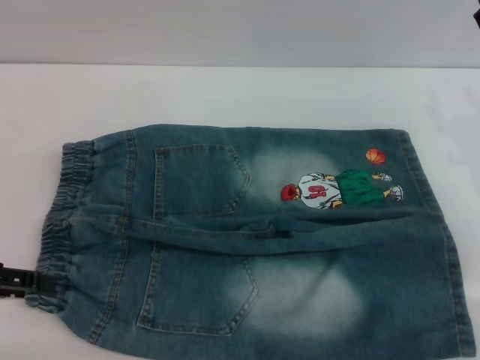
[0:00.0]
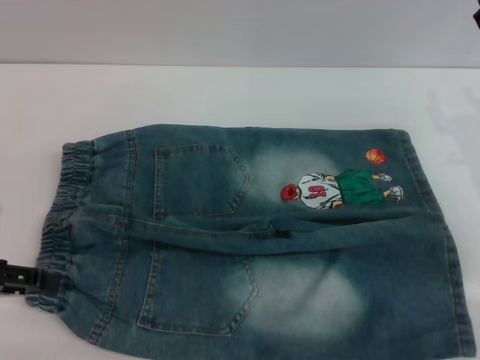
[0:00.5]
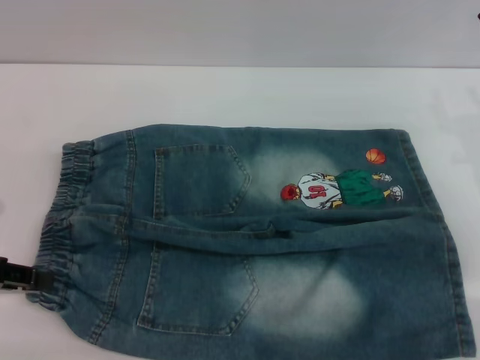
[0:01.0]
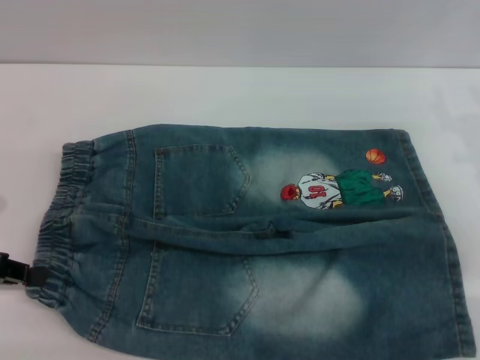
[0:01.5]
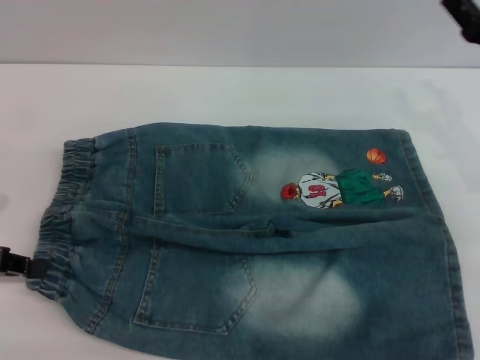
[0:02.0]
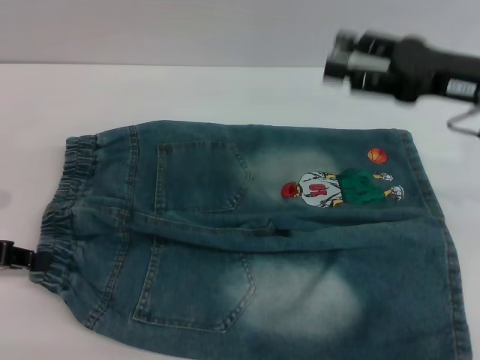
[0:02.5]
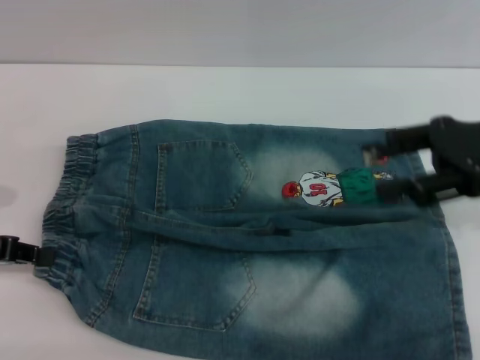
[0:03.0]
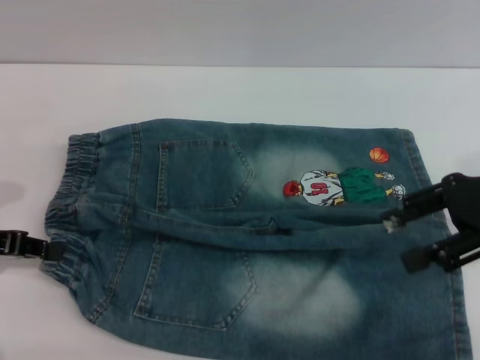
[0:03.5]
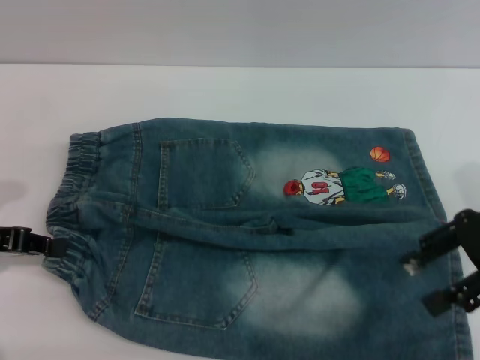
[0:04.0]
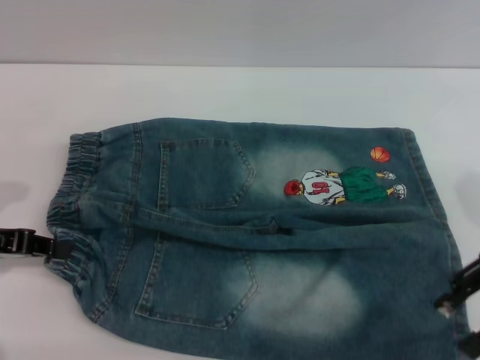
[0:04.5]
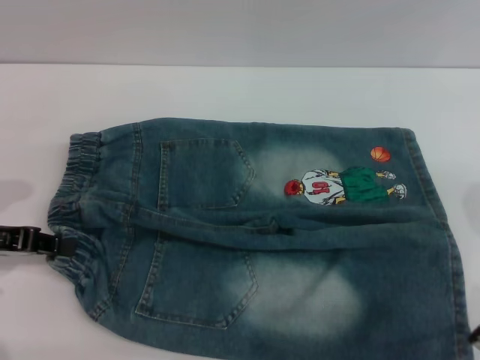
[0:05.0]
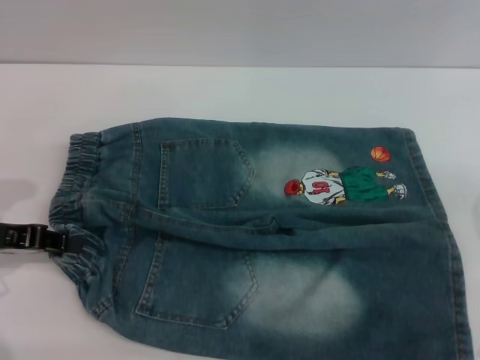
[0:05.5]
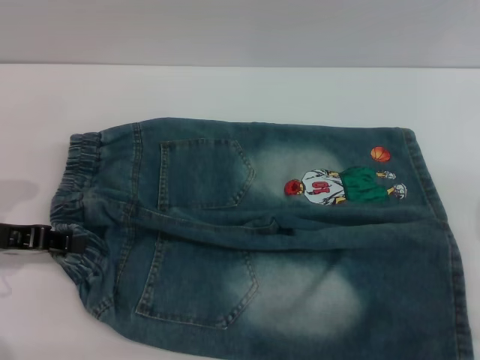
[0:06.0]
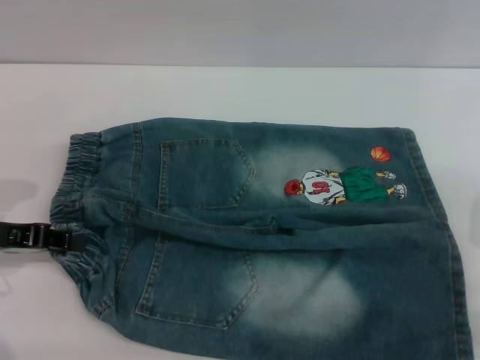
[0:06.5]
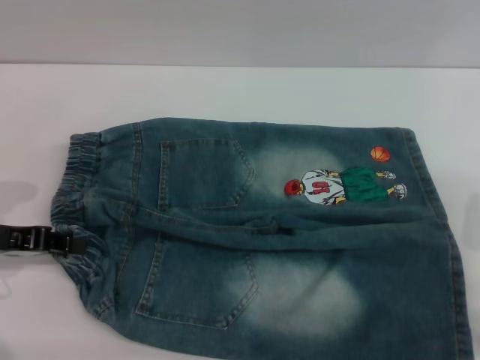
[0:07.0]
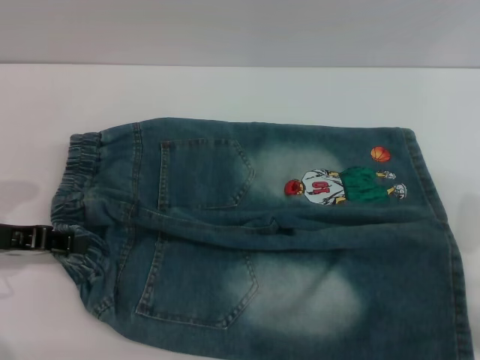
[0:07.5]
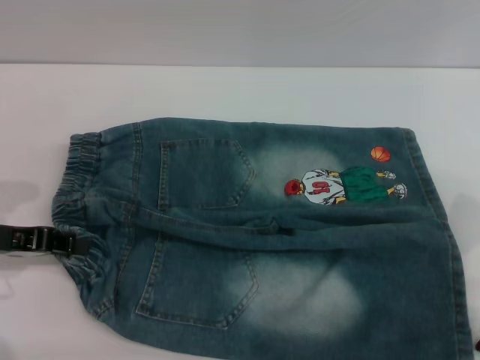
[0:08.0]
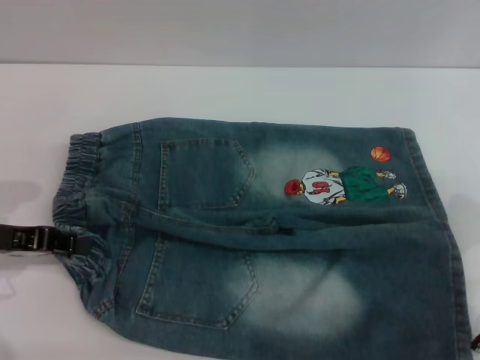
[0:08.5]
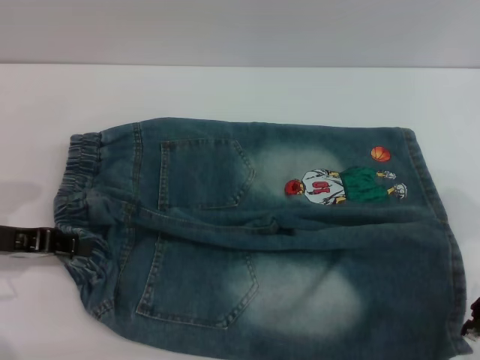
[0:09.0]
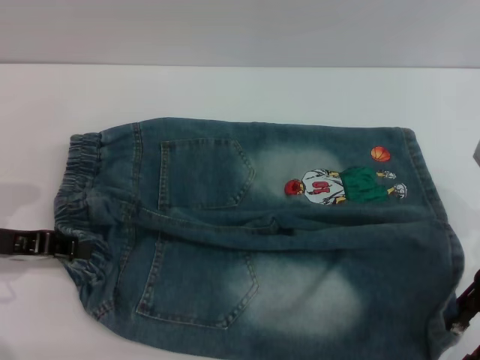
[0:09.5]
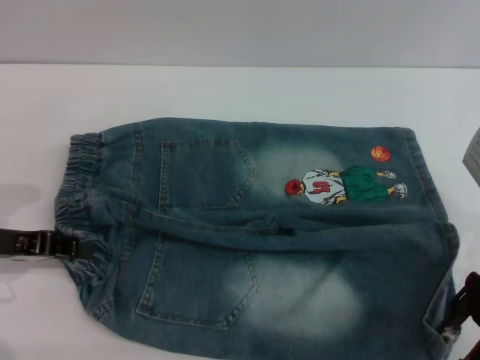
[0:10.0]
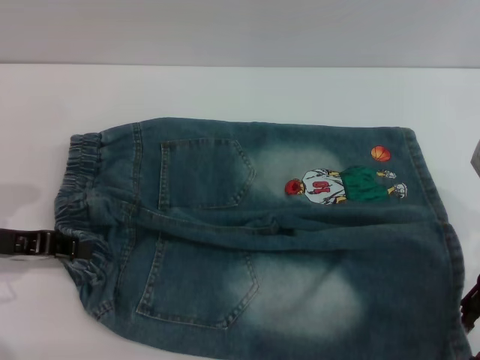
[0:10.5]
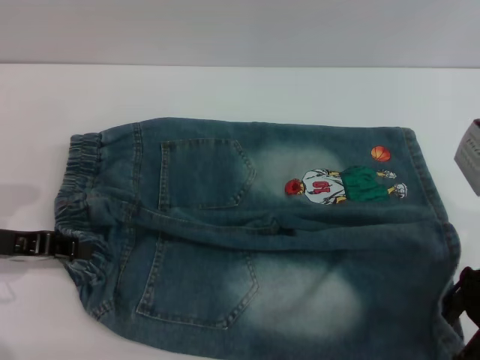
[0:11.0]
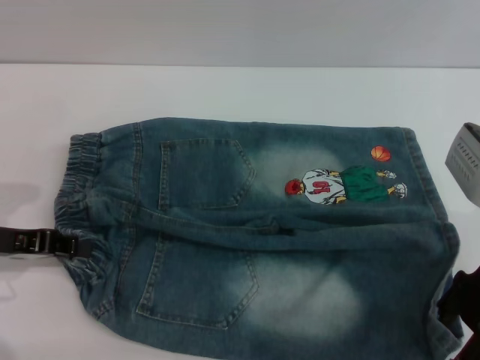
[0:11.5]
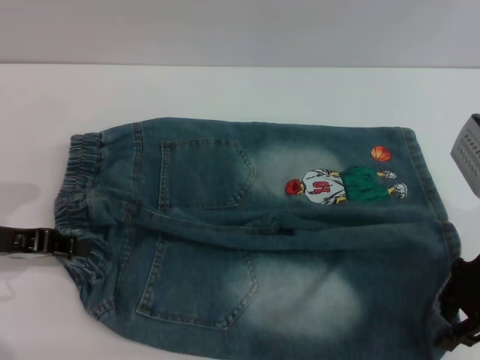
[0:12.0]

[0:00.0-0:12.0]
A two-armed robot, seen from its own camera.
0:00.0 to 0:02.0: The left gripper closes.
0:02.0 to 0:04.0: The right gripper heads upward, covering about 5 cm.
0:08.0 to 0:12.0: The grippers make only small movements.

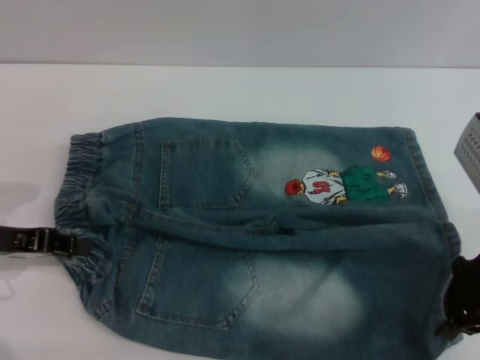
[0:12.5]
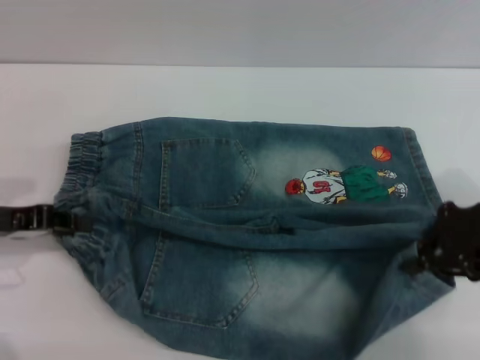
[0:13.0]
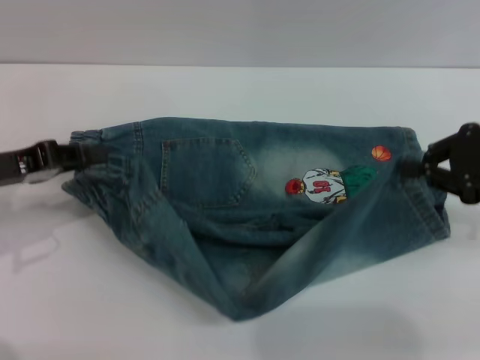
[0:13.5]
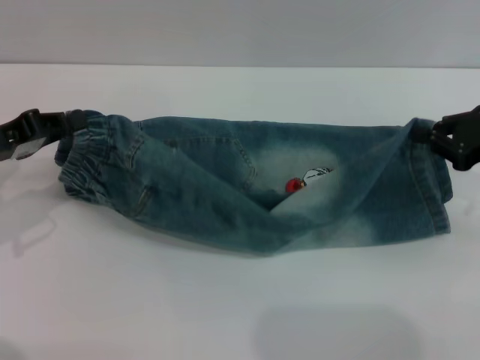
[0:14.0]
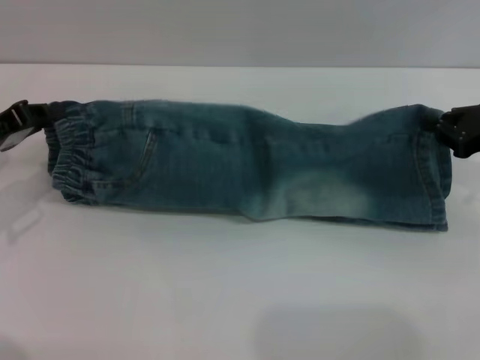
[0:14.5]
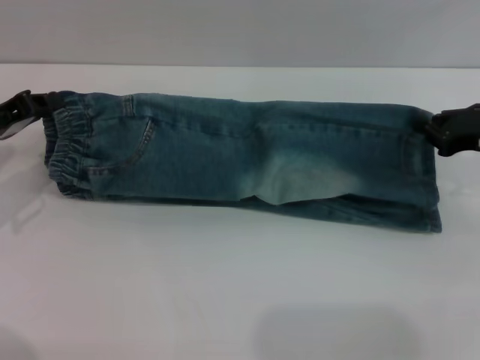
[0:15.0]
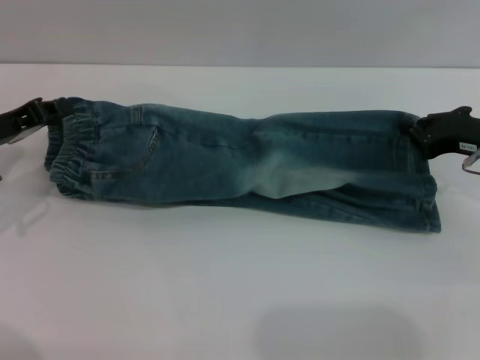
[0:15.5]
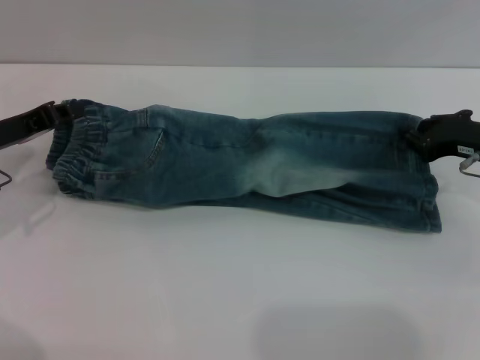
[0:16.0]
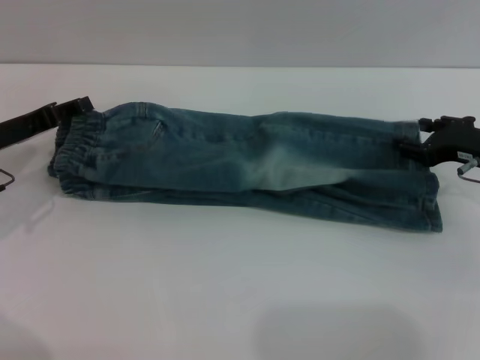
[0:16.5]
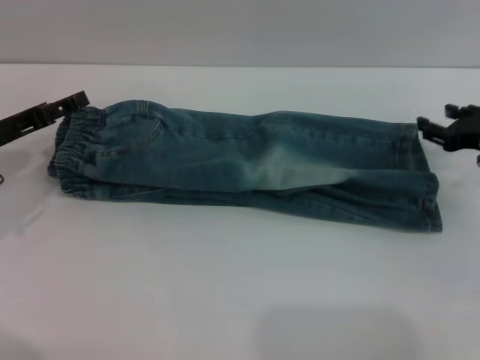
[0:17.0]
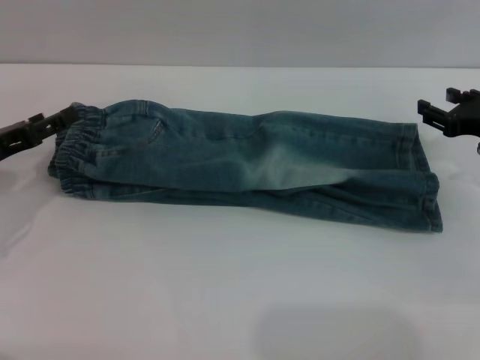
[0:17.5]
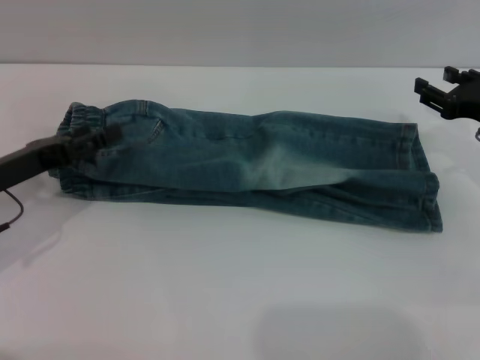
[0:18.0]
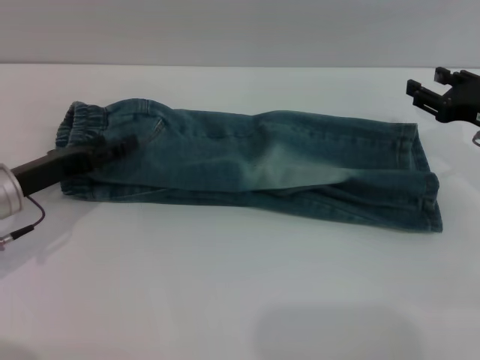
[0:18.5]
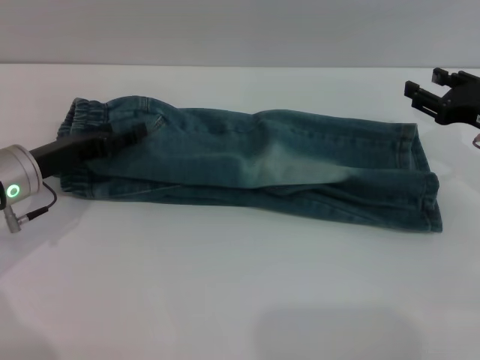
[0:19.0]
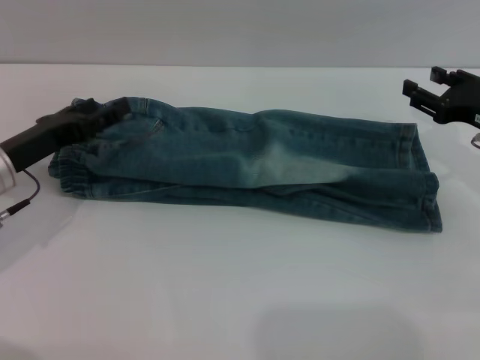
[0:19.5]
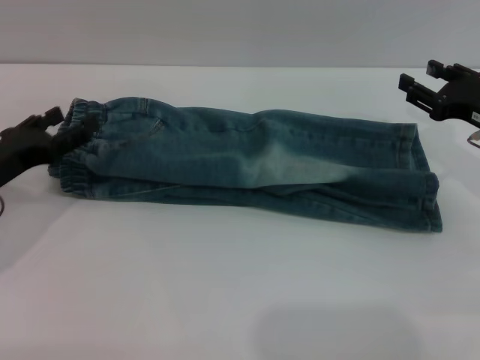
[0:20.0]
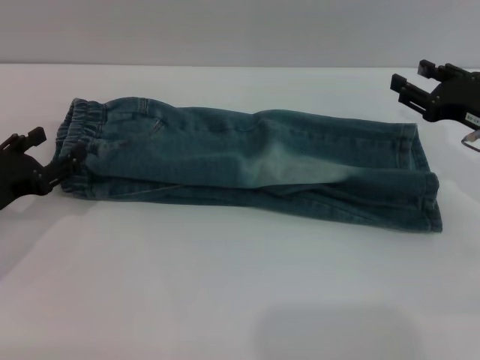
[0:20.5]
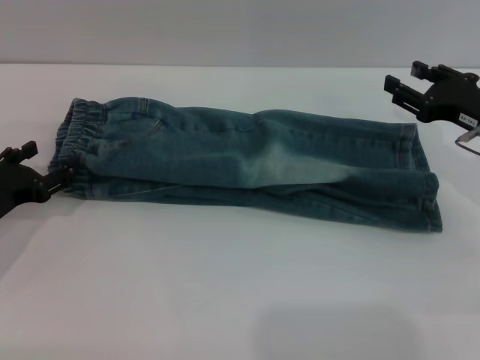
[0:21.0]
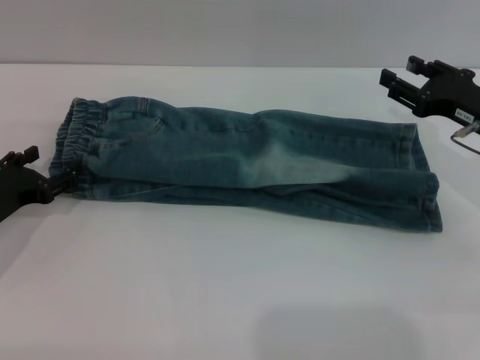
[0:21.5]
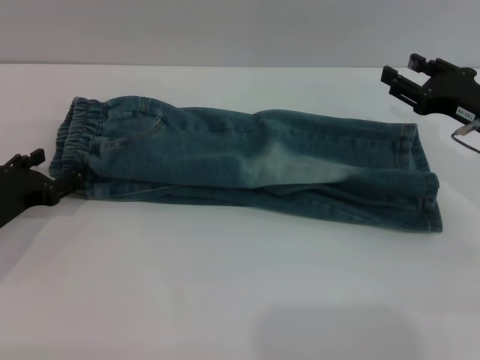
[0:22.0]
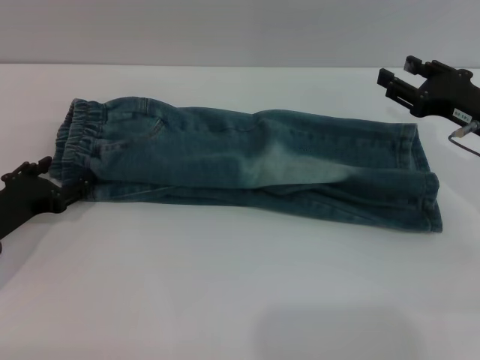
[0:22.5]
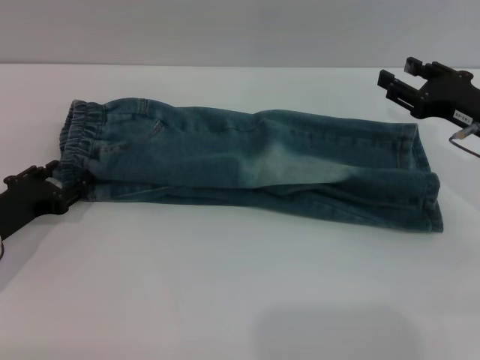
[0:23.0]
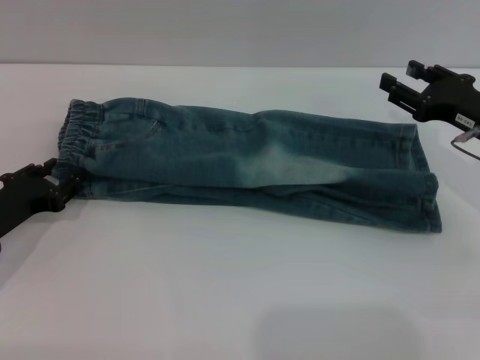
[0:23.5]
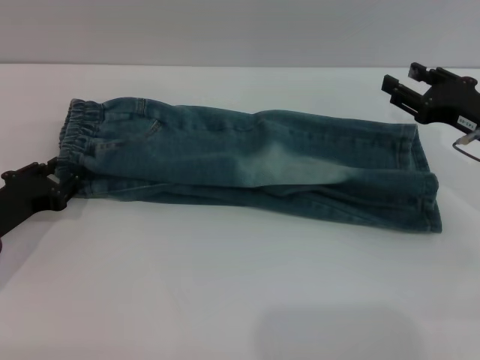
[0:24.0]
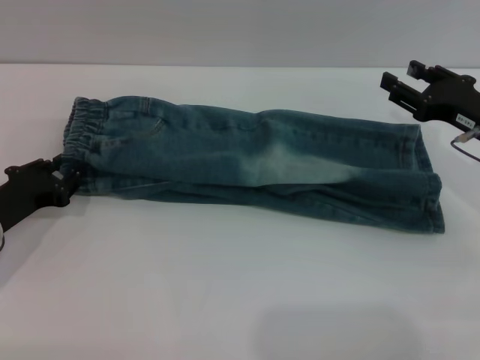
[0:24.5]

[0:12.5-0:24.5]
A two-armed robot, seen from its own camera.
Step, 0:12.5 to 0:17.5: Fold the bottom of the pants upward with both grippers.
0:12.5 to 0:14.5: The right gripper shifts about 10 cm to the right.
0:14.5 to 0:16.5: The right gripper shifts by some 5 cm, and opens up. The left gripper opens.
0:16.5 to 0:18.5: The left gripper changes place by some 5 cm, and opens up.
0:18.5 to 0:20.5: The left gripper shifts by approximately 5 cm.
0:20.5 to 0:22.5: There are only small adjustments of the grippers.
0:22.5 to 0:24.5: The left gripper closes its fingers.

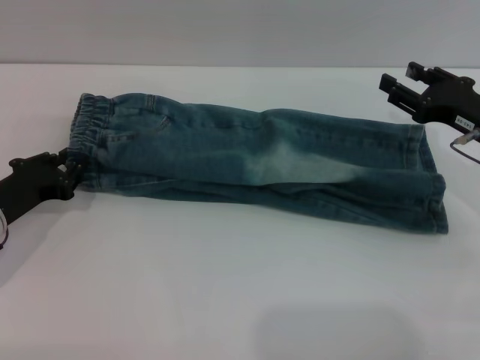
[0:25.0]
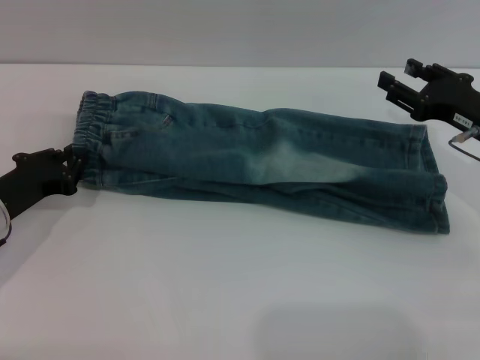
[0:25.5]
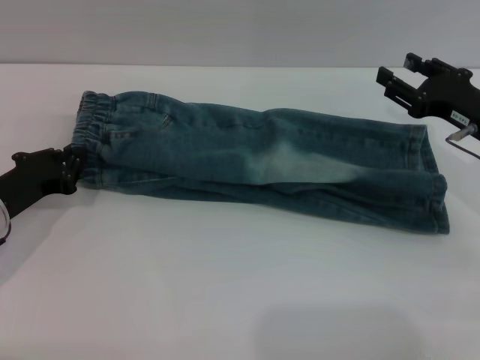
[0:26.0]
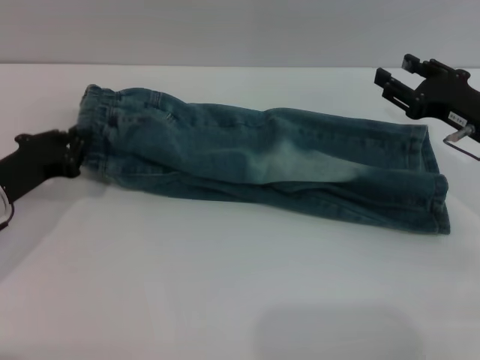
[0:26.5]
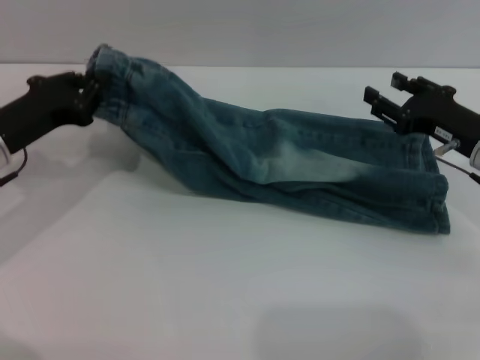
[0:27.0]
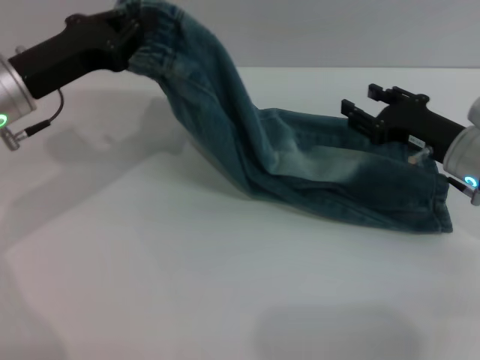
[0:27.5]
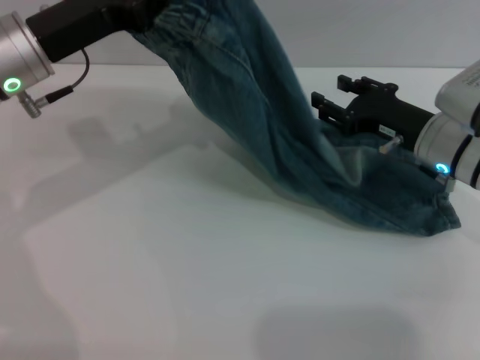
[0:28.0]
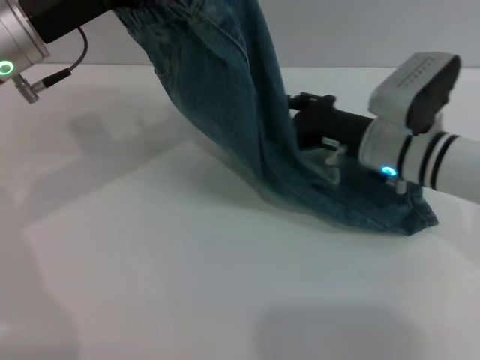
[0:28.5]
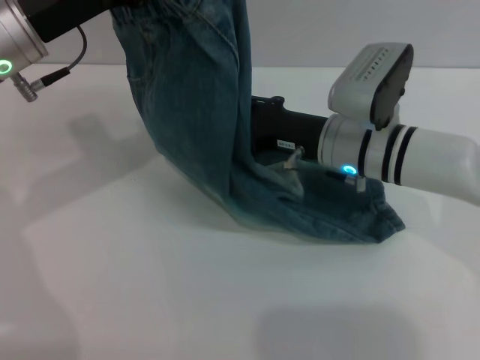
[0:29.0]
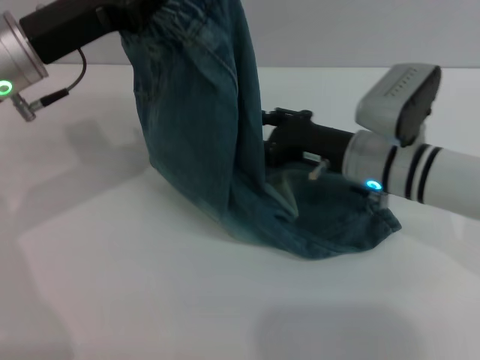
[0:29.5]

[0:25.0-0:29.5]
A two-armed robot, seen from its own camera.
0:25.0 to 0:27.0: The left gripper travels upward by about 5 cm.
0:27.0 to 0:29.5: The right gripper travels to the left by about 10 cm, while the left gripper is displaced upward and to the right by some 10 cm.
